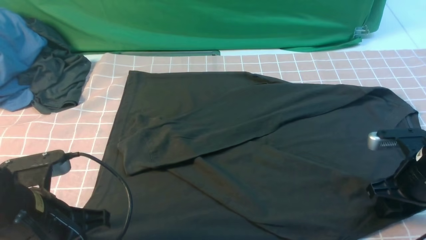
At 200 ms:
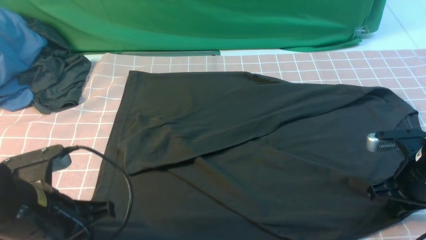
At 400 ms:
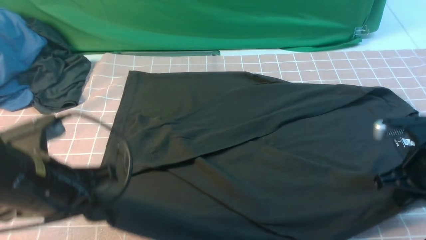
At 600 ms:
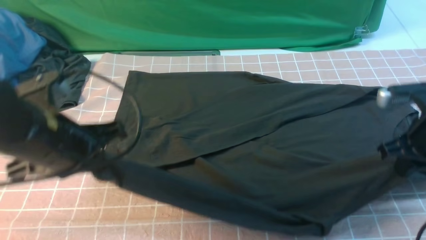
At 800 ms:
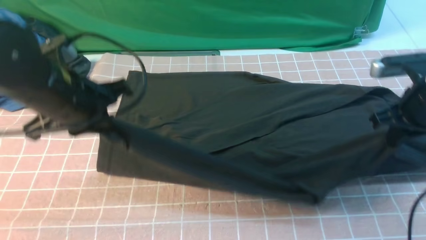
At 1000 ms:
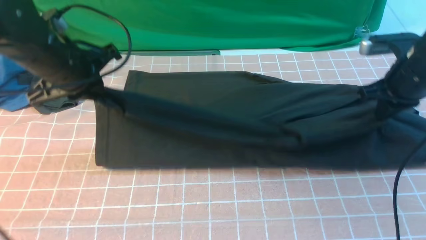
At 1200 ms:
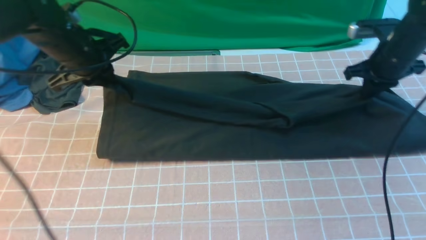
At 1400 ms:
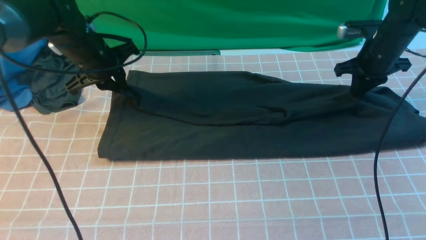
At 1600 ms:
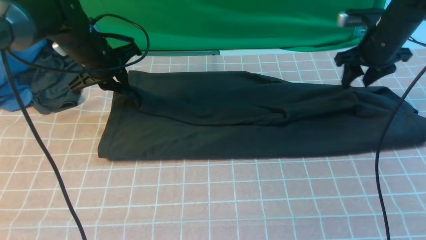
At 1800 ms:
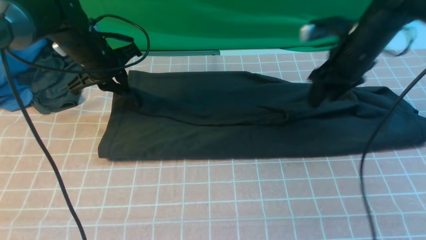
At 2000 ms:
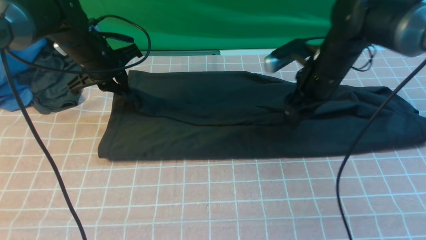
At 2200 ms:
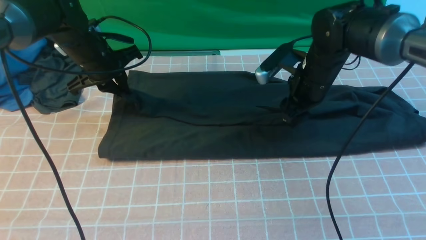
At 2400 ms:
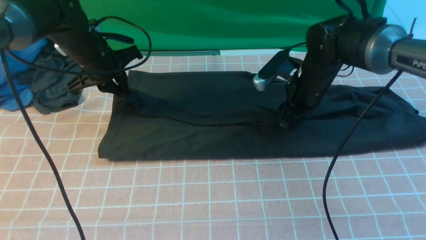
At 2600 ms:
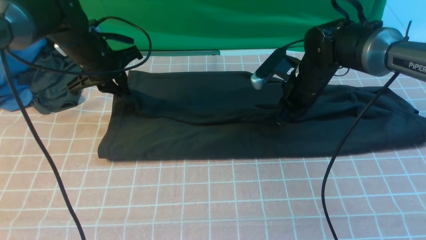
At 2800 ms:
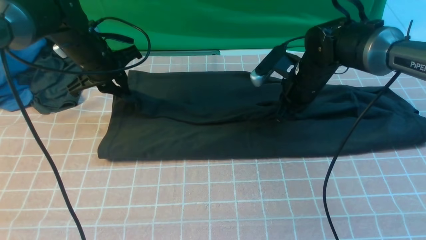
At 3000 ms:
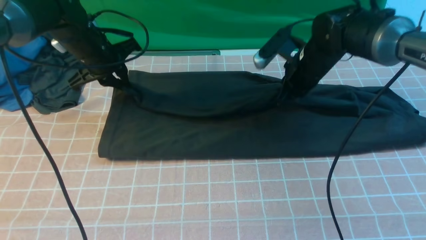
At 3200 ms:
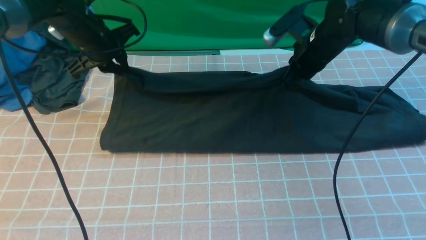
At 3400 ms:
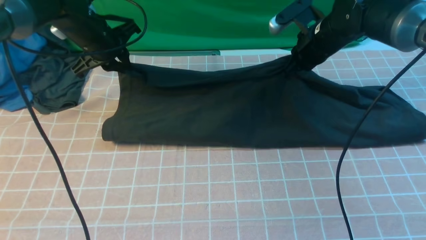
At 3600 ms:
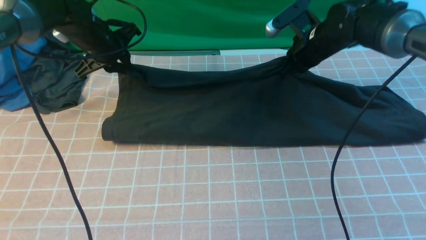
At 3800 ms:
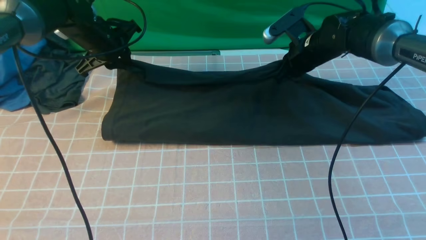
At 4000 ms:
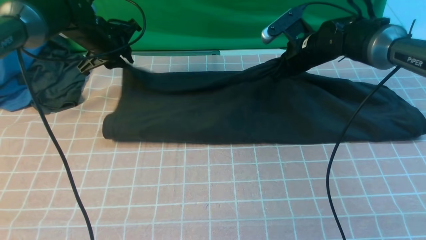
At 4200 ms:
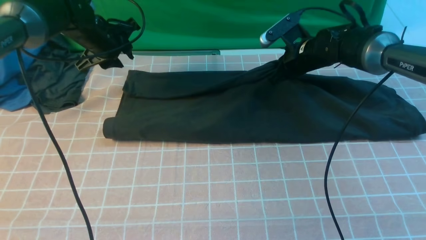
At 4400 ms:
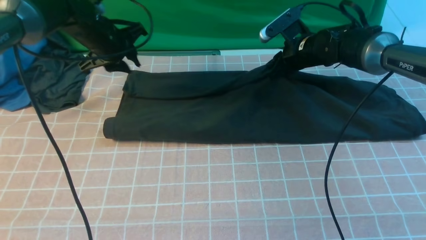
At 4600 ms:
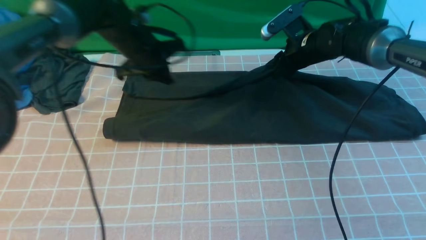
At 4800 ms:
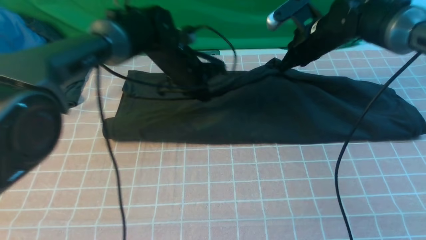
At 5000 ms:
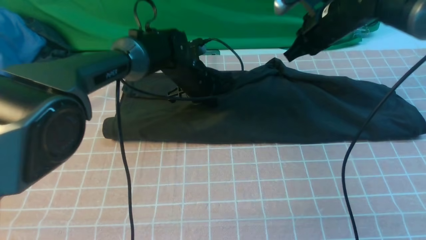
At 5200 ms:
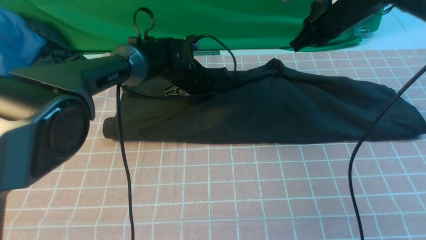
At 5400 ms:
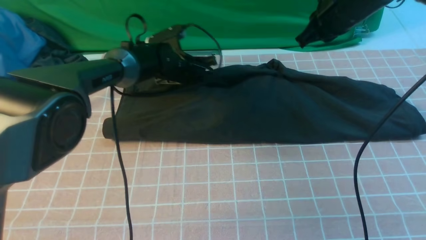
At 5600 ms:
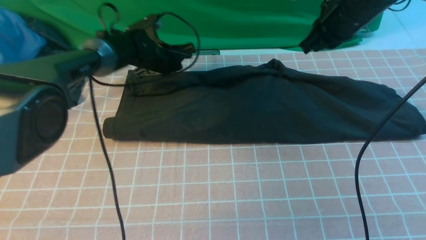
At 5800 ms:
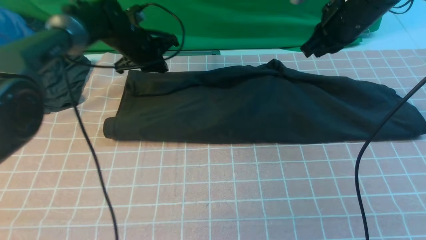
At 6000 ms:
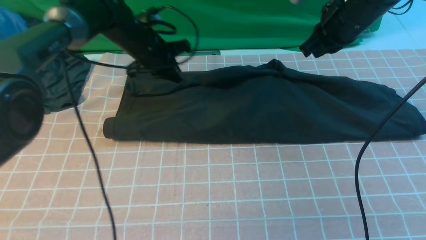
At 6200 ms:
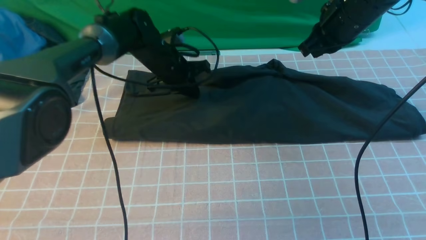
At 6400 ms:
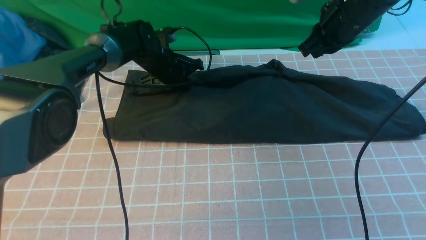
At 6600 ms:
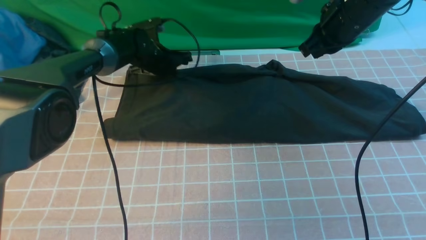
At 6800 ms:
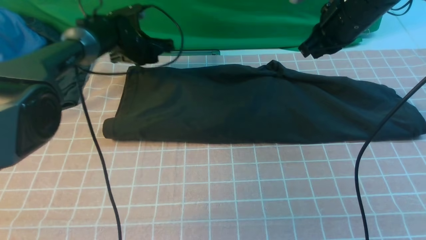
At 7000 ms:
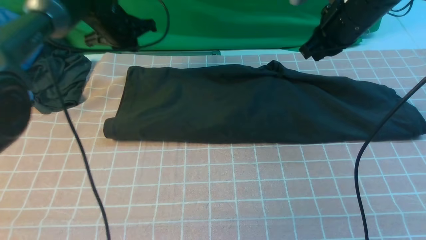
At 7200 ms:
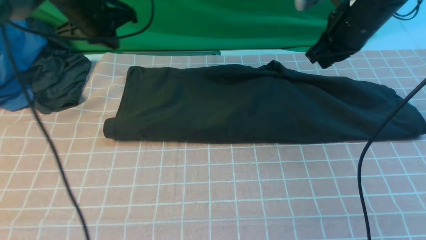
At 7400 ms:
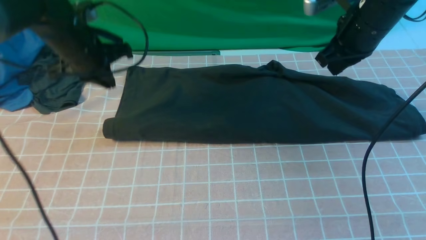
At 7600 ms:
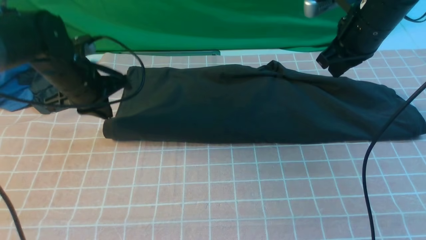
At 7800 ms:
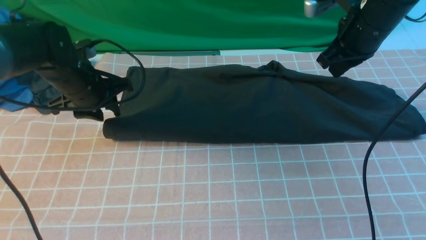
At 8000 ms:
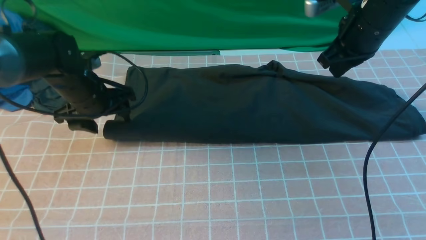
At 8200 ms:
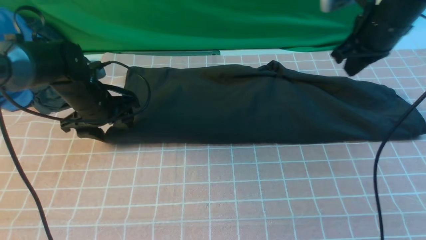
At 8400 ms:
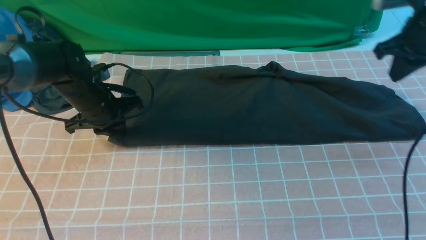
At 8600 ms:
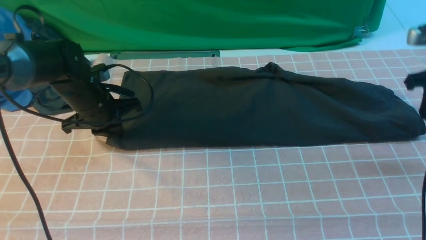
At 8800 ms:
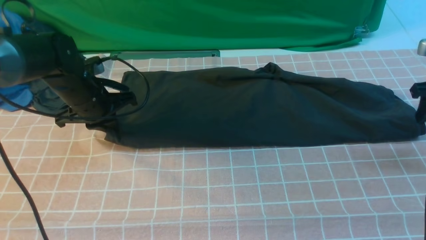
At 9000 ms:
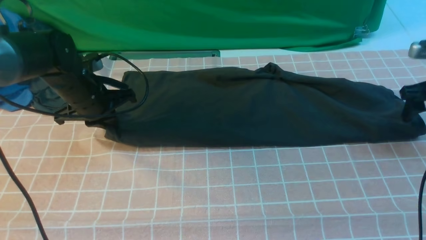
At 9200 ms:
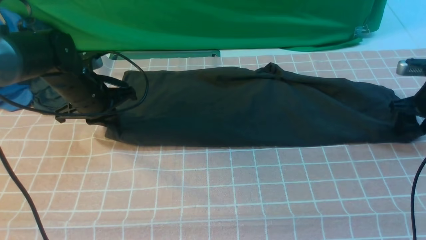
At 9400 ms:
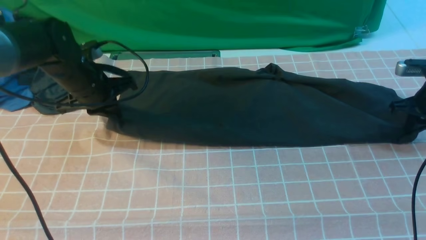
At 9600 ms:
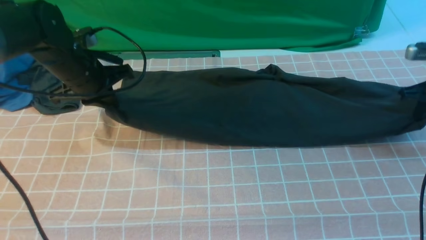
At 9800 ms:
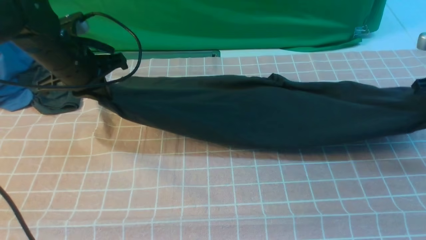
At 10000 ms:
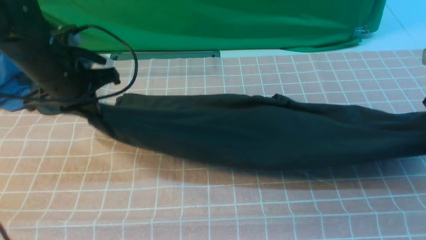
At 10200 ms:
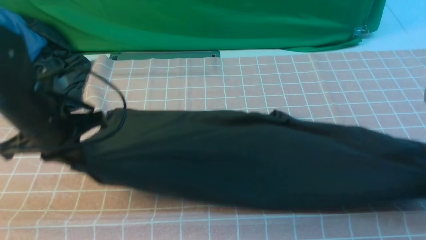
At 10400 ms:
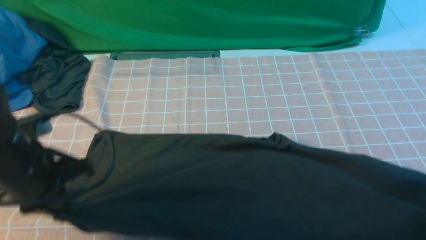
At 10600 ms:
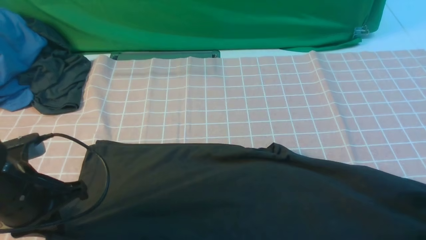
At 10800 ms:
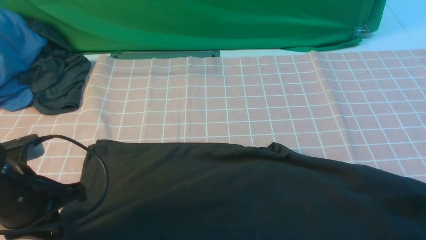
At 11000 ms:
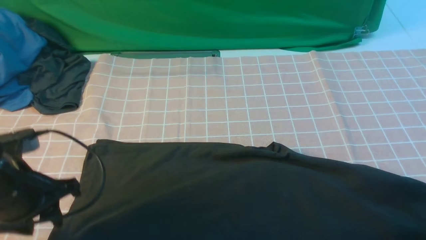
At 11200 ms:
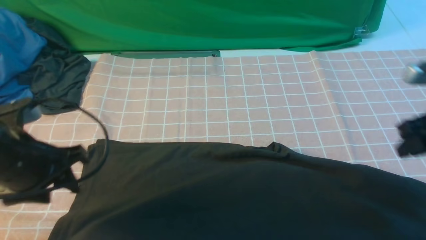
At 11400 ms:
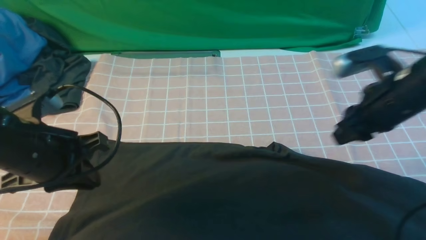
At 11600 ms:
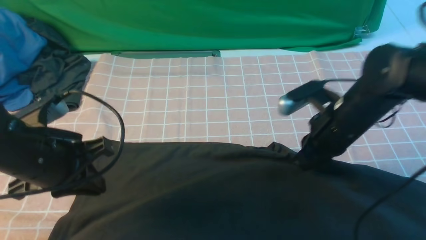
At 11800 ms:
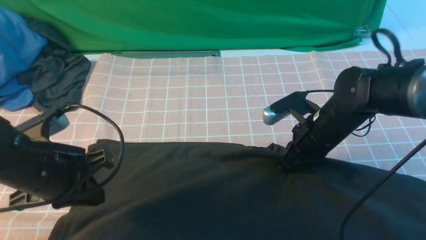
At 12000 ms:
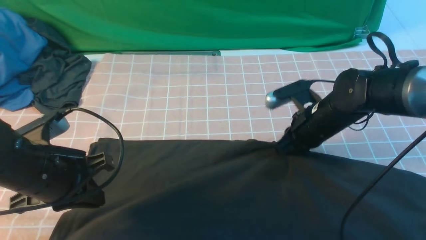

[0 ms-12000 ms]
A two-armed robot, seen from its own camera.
Step, 400 ms to 5600 ms: use both arms to drag the lower edge of the fabric forward and fold it over the upper edge.
0 ms to 1600 ms: Both grippers travel together forward, about 25 cm. The right gripper closes, then opens again.
1600 ms to 3000 ms: The right gripper heads to the left, covering approximately 10 cm, and closes up.
3000 ms to 4400 ms: The right gripper is displaced forward by some 5 cm, and opens up.
4400 ms to 6000 ms: The left gripper closes its fingers. Meanwhile the right gripper is displaced upward and backward by some 15 cm, and closes up.
6000 ms to 7600 ms: The left gripper goes about 15 cm backward and to the left.
7600 ms to 9000 ms: The left gripper opens, then closes once more, while the right gripper shifts roughly 20 cm to the right and downward, and opens.
9000 ms to 10400 ms: The two grippers go roughly 15 cm backward. The right gripper closes up.
10400 ms to 12000 ms: The right gripper goes approximately 25 cm to the left and forward, while the left gripper opens and closes again.

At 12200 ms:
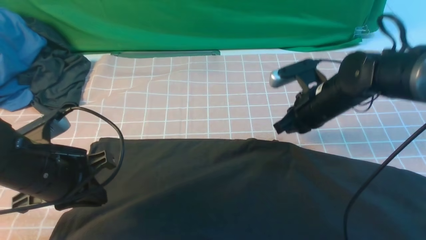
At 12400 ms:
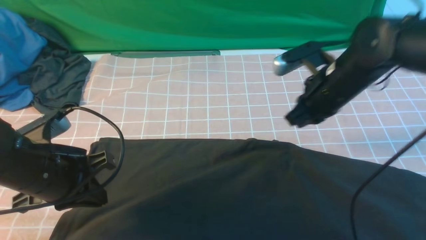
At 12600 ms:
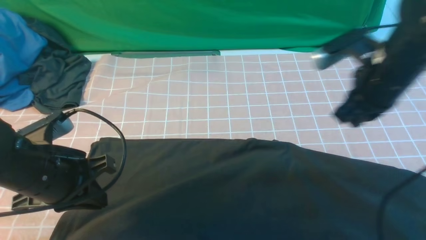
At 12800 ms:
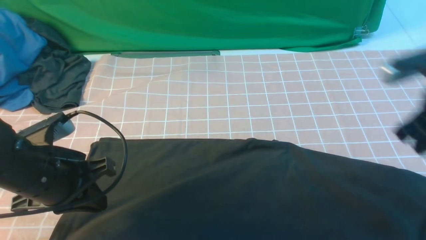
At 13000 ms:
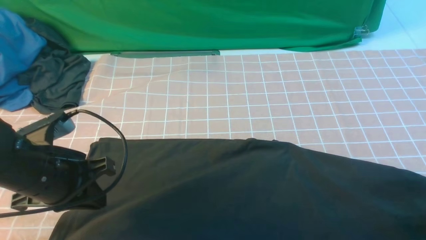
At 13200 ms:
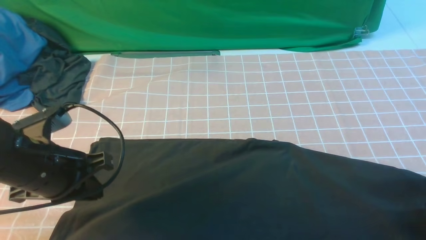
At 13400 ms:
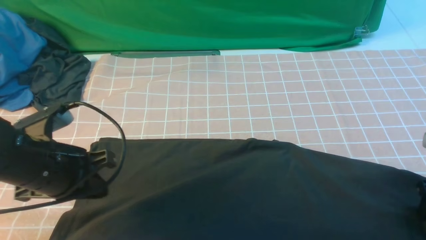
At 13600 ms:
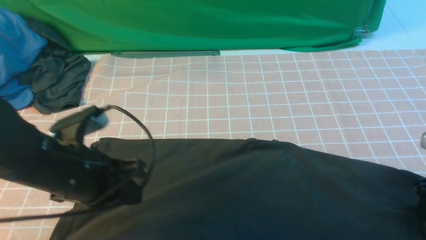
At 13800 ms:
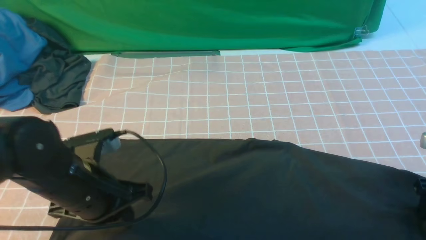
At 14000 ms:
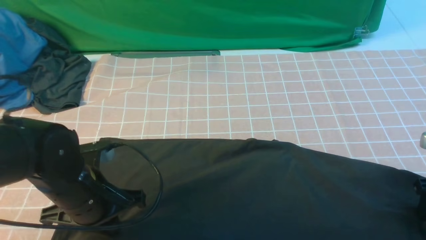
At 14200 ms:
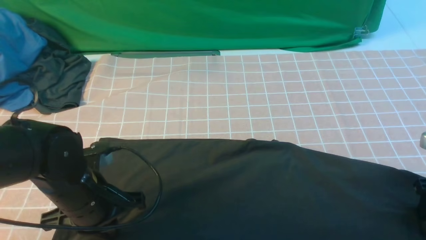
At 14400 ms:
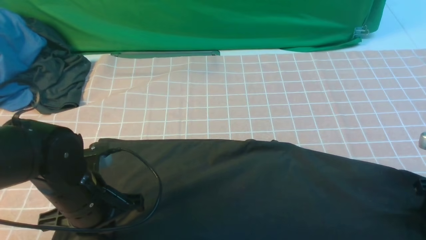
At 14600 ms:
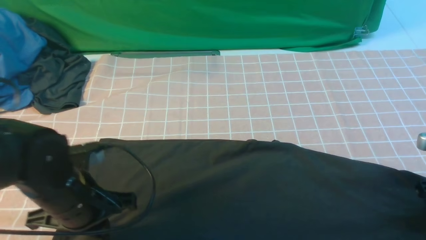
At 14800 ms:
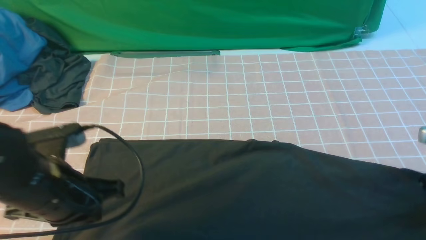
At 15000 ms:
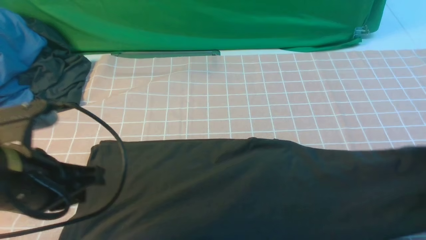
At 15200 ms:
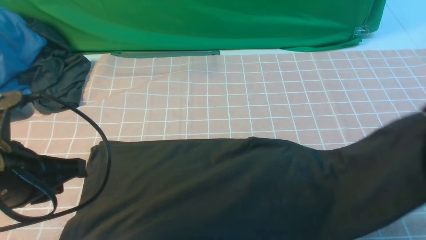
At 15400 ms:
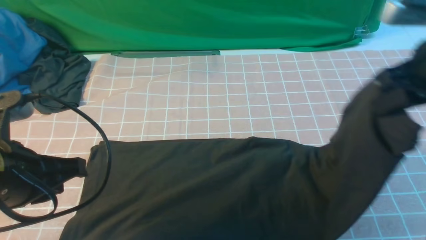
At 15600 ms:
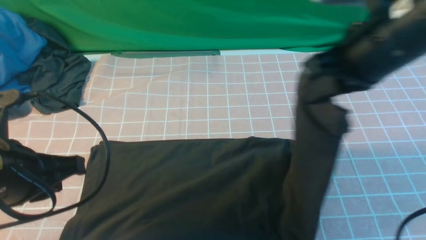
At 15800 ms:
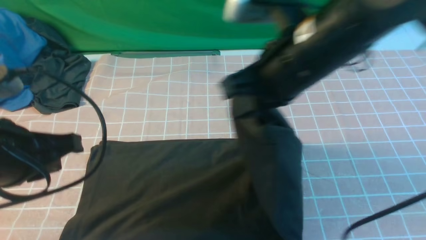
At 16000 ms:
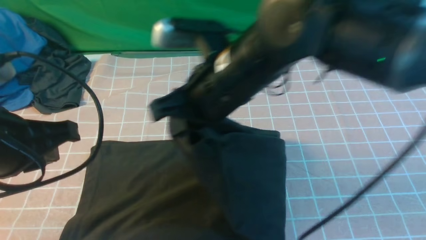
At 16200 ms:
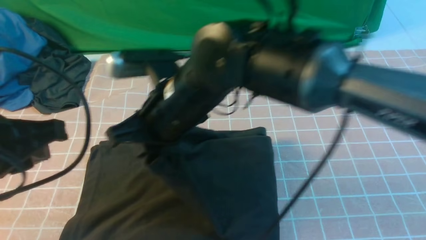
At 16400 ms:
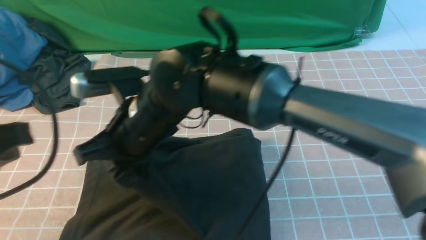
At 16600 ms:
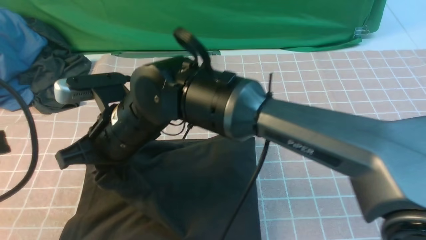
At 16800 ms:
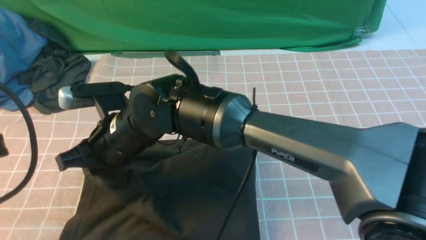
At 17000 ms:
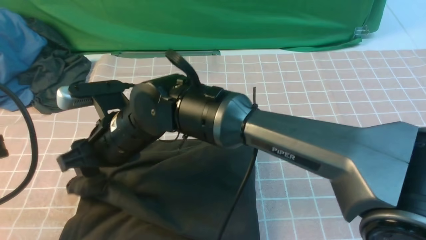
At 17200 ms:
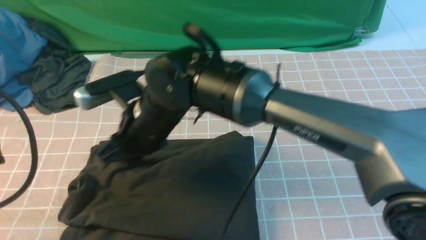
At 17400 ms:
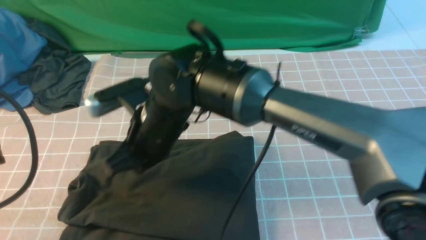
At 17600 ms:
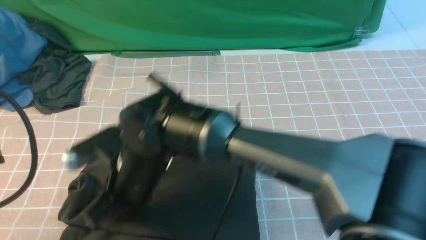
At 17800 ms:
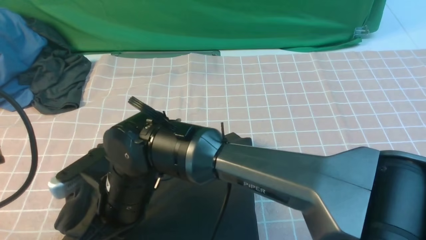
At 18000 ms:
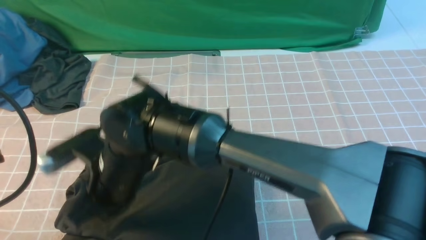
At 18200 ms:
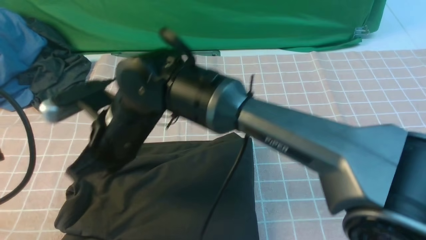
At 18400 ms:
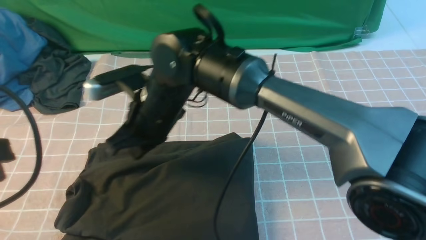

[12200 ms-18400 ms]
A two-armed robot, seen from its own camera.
Step, 12200 ms to 14800 ms: use the right arm to clamp the right edge of the fabric.
Step, 15200 ms to 17200 ms: use the right arm to drag the right edge of the fabric to the left and folds it over the left edge.
12200 ms to 13800 ms: The right gripper goes about 25 cm to the right and backward, and opens its fingers, while the left gripper moves roughly 5 cm.
13800 ms to 15400 ms: The left gripper travels upward by some 10 cm. The right gripper goes roughly 25 cm upward and to the left, and closes its fingers.
15400 ms to 16800 ms: The left gripper is displaced upward and backward by approximately 10 cm. The right gripper heads to the left, covering approximately 35 cm.
16800 ms to 18400 ms: The right gripper closes.
